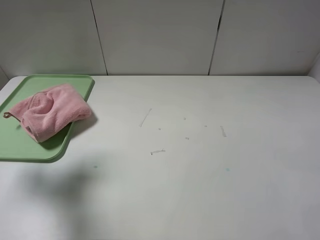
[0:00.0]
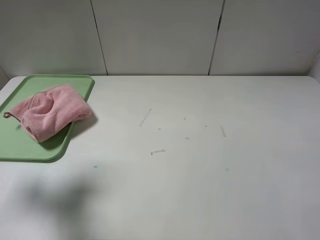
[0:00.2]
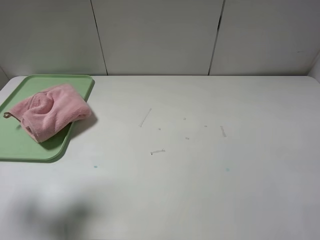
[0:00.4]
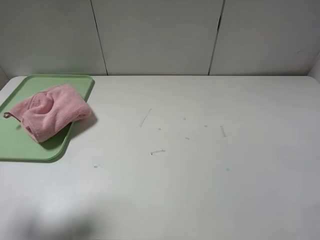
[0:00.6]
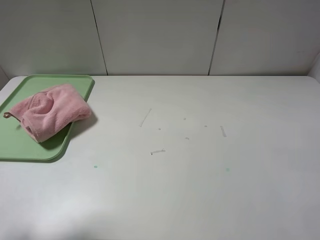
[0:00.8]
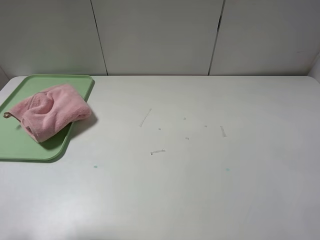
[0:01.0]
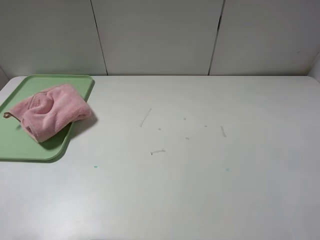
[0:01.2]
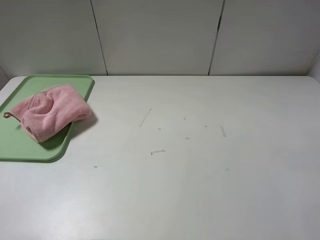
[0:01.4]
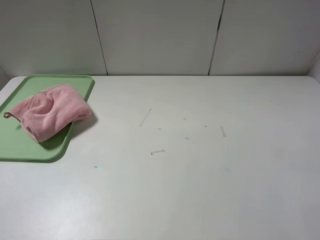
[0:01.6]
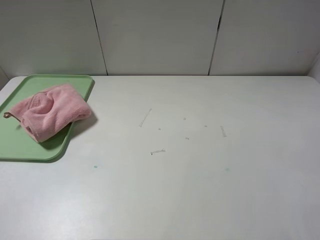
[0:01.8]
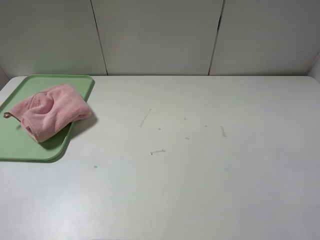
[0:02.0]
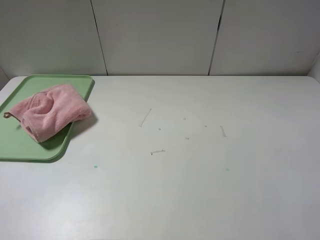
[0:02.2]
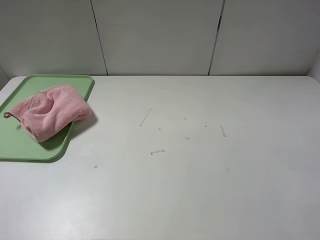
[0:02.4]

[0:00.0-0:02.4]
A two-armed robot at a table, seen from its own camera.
0:00.0 to 0:01.2: The left gripper travels backward by some 20 cm.
